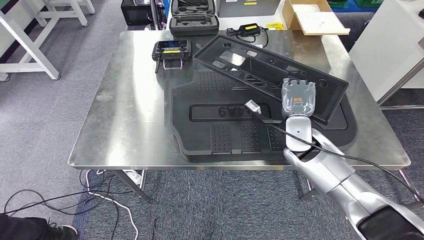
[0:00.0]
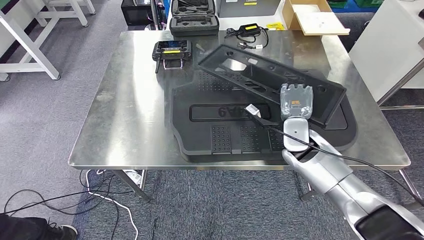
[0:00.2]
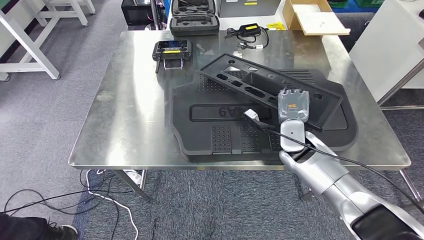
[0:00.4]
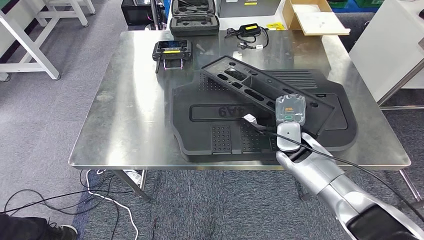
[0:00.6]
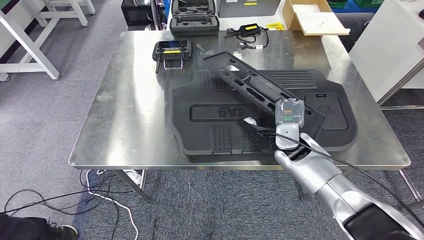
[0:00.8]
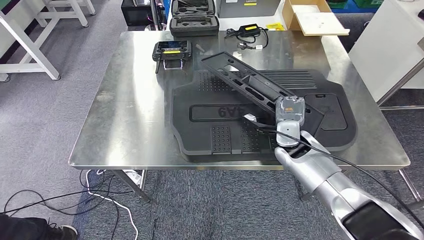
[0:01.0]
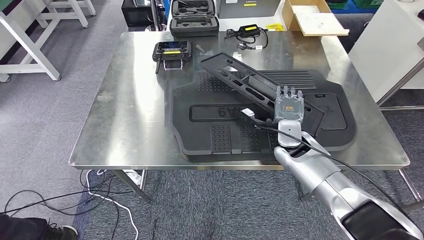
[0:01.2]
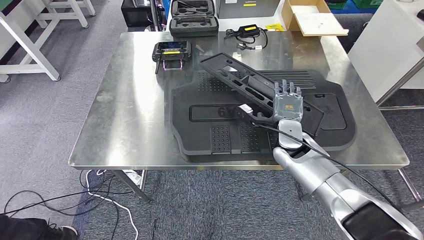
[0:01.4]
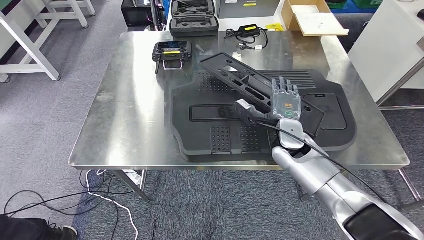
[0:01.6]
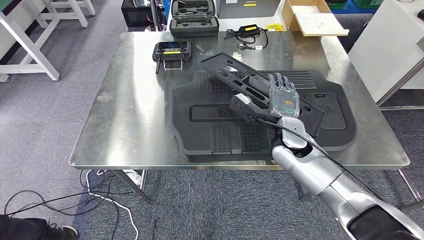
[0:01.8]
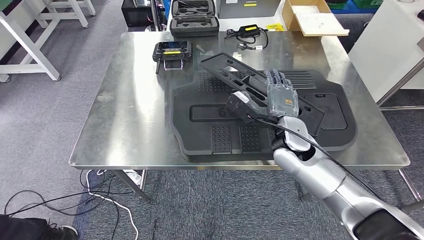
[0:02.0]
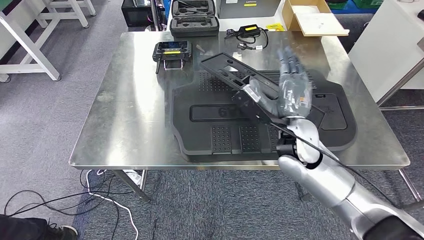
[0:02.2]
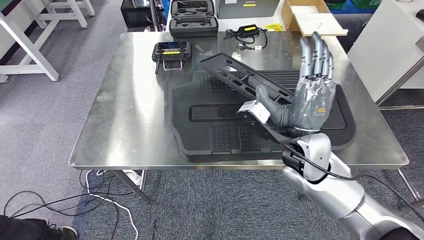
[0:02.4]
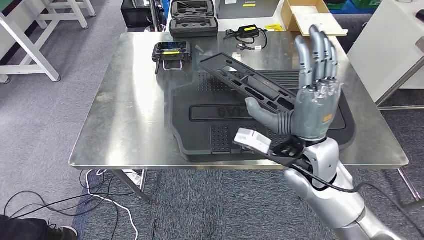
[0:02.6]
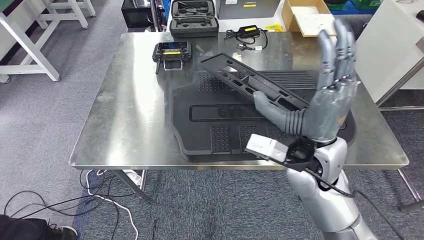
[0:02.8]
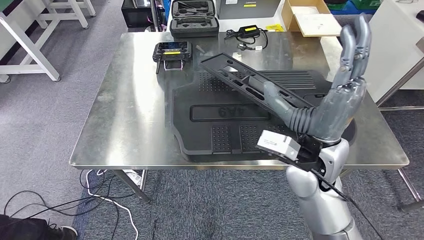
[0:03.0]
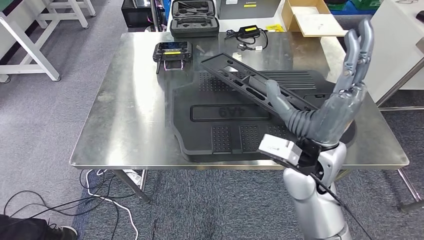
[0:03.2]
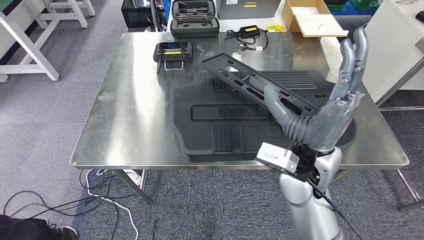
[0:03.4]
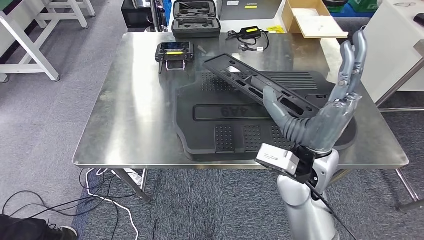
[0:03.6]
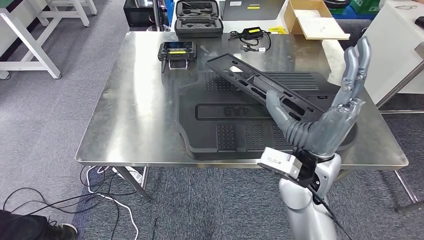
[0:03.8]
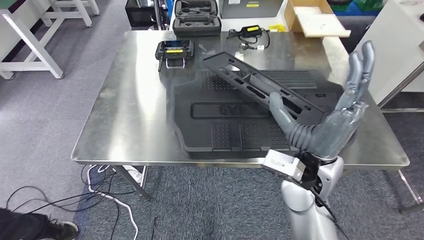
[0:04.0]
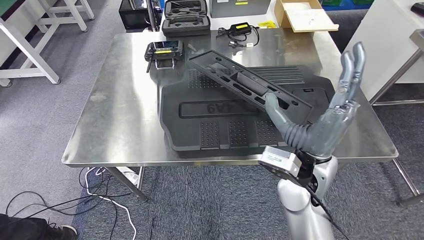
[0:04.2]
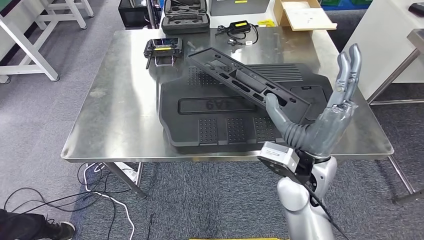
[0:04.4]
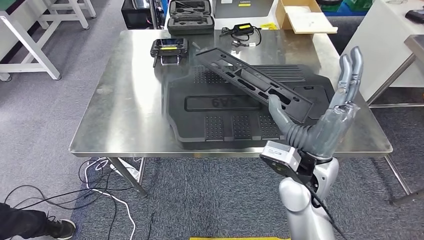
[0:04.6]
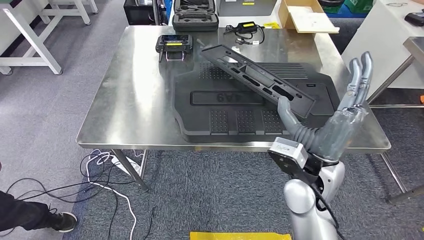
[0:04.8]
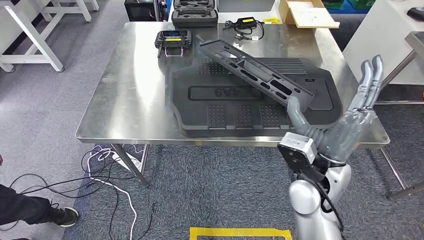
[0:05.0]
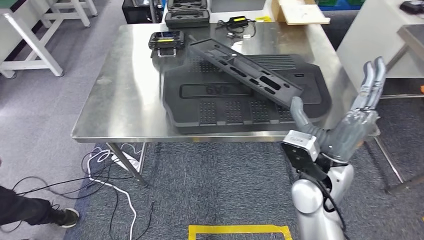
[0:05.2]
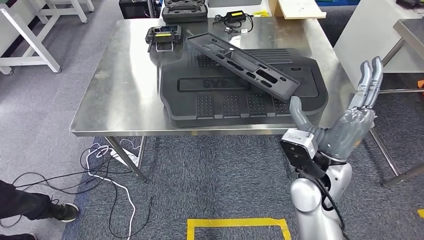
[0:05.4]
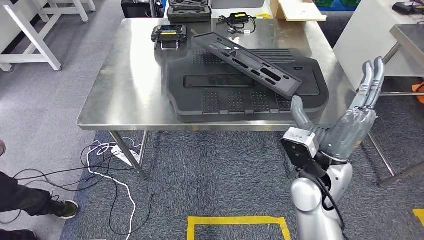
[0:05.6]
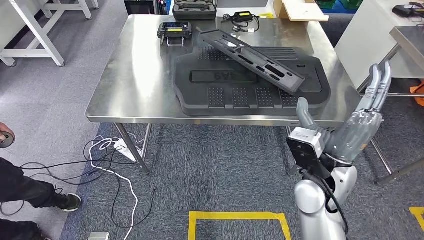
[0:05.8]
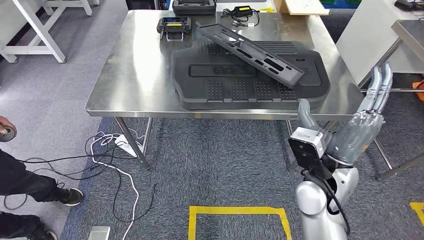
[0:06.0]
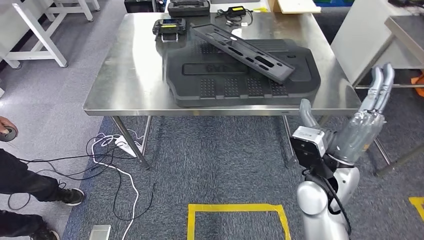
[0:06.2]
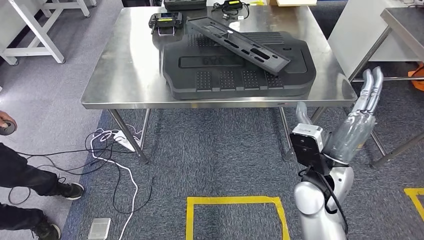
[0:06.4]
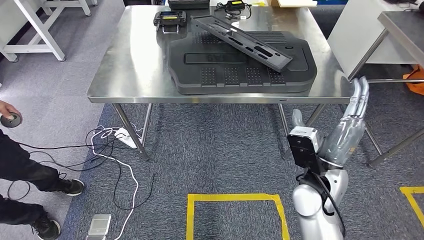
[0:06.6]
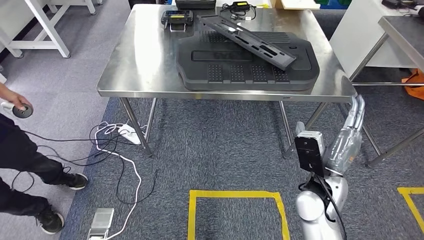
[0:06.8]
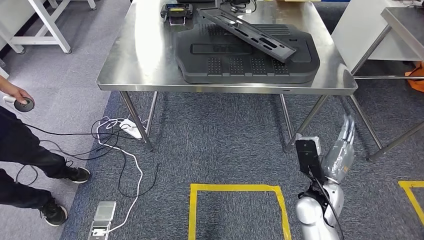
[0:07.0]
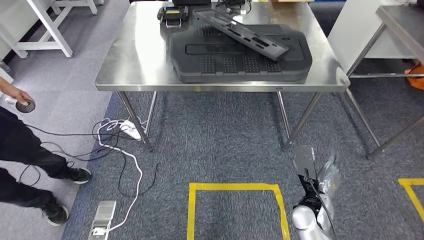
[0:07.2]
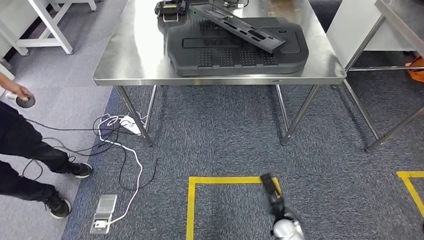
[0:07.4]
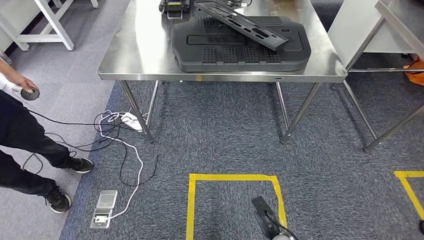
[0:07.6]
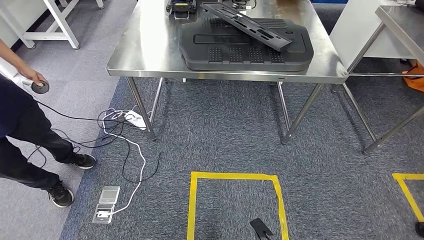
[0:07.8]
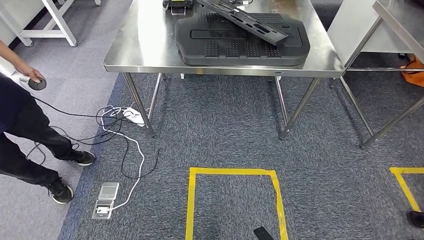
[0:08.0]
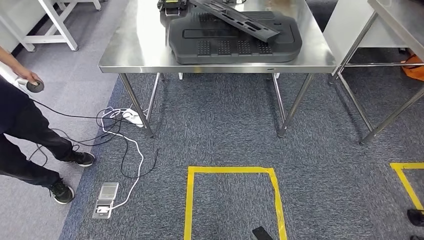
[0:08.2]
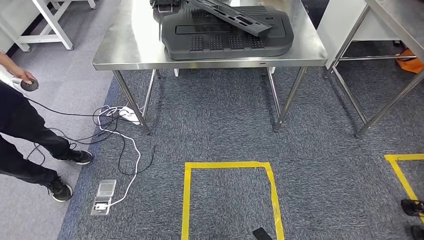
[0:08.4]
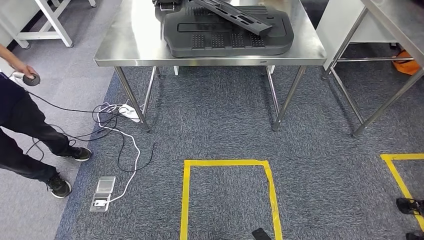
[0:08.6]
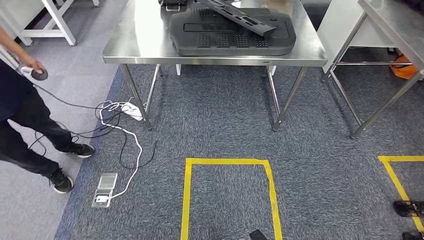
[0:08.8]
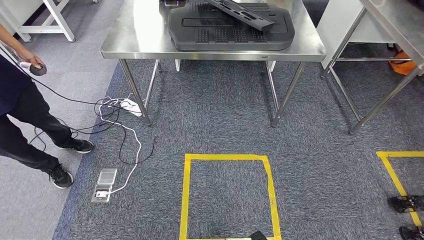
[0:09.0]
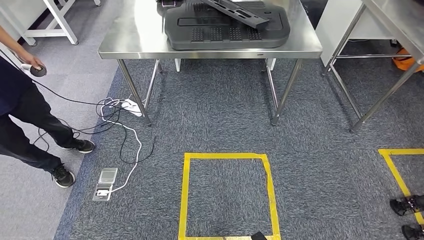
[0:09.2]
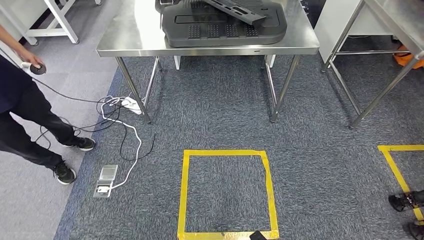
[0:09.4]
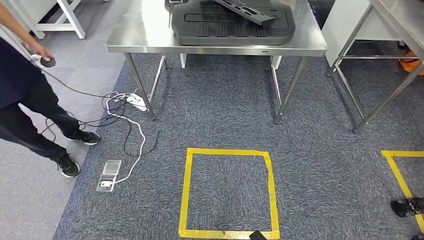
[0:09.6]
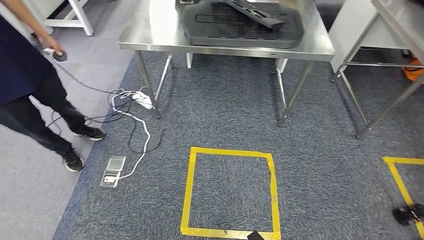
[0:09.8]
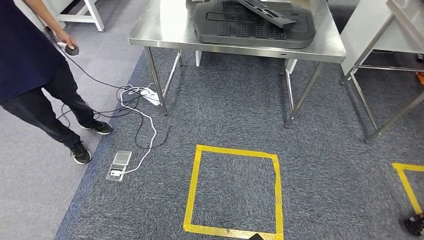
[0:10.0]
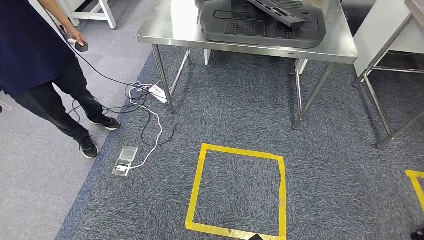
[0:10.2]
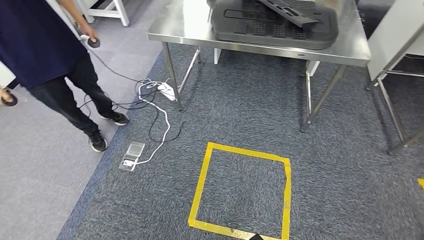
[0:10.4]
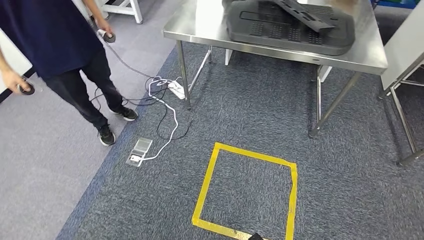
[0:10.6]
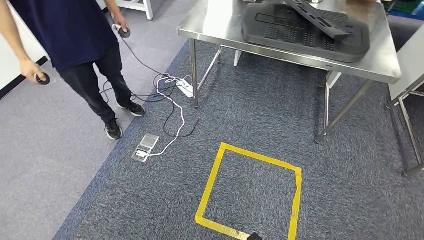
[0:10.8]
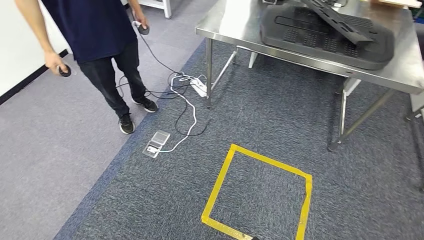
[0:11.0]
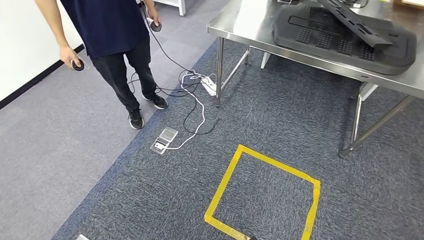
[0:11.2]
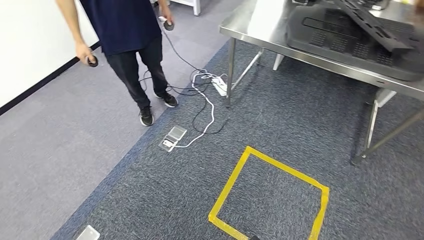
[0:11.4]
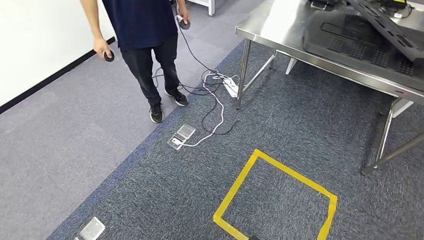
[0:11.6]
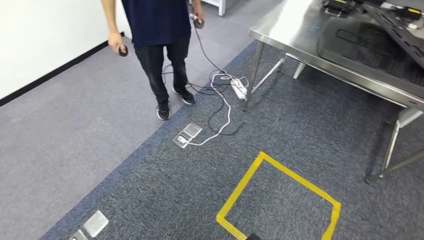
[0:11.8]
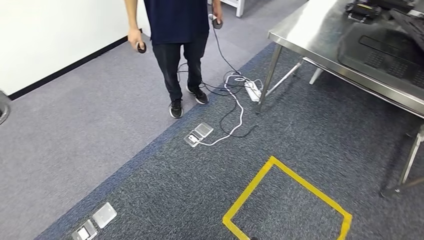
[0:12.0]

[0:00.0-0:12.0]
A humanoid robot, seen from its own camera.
Step, 0:00.0 to 0:05.2: Insert the large material into the corresponding slot on the workbench.
0:01.6 to 0:03.0: The right hand heads backward and upward, covering some 15 cm.

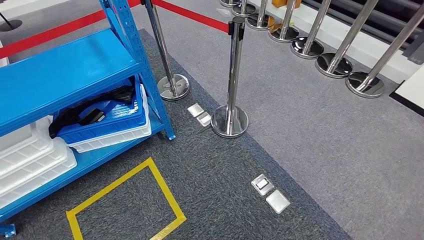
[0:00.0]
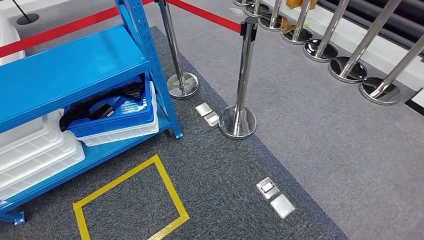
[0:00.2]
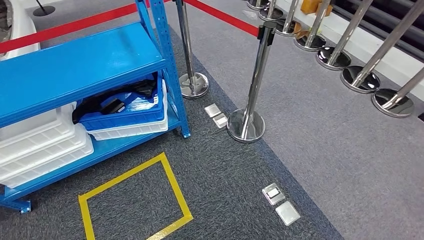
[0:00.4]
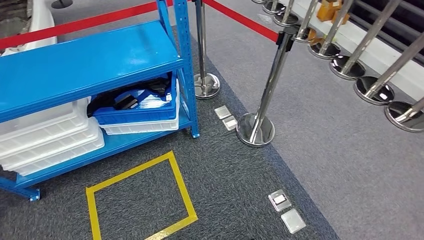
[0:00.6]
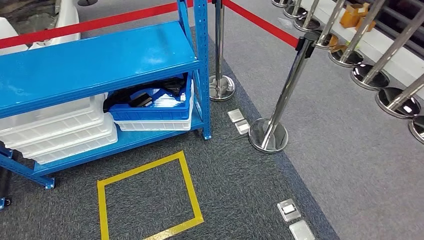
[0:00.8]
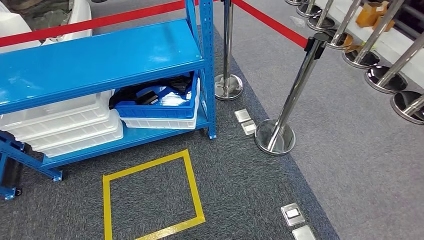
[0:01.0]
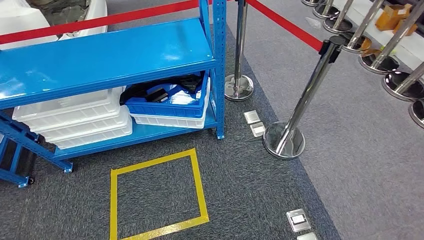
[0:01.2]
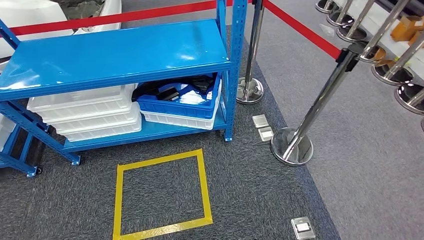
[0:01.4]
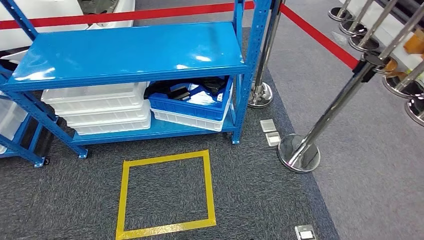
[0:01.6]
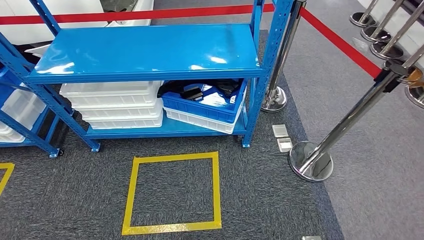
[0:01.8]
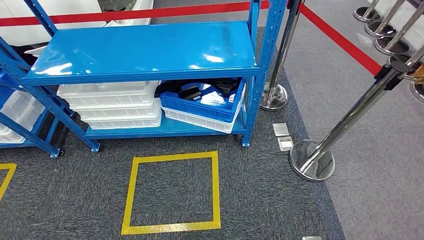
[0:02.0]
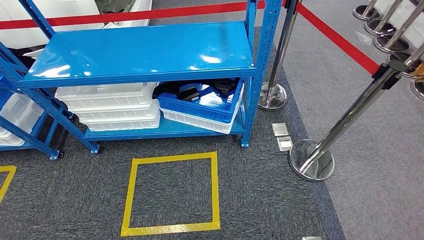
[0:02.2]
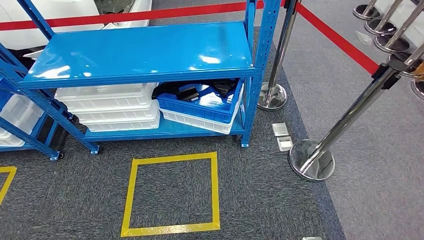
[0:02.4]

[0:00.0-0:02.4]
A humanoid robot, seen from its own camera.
Step, 0:00.0 to 0:02.4: Move to the initial position of the shelf.
